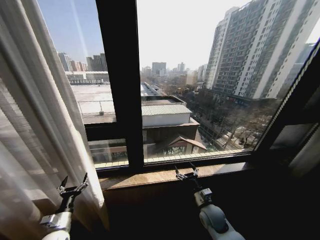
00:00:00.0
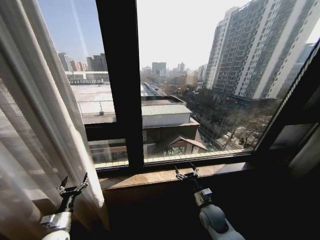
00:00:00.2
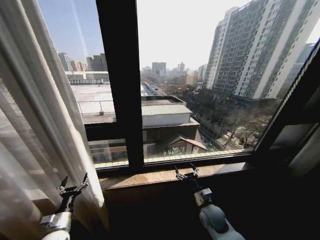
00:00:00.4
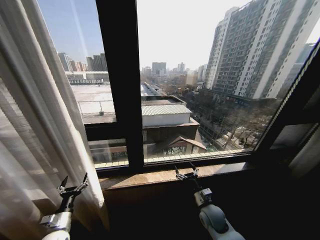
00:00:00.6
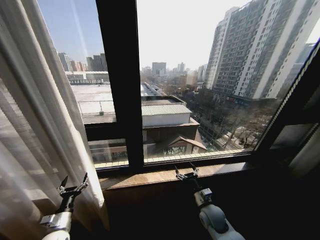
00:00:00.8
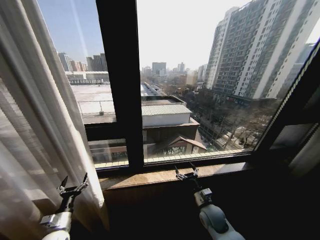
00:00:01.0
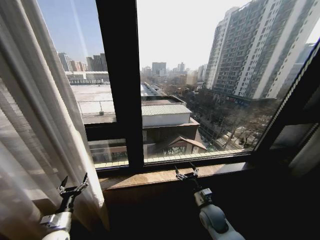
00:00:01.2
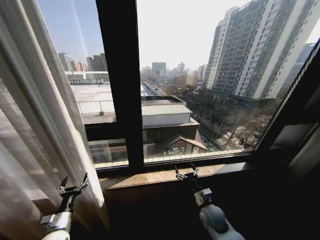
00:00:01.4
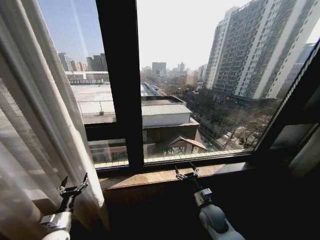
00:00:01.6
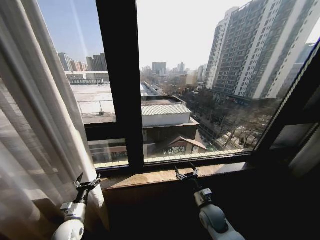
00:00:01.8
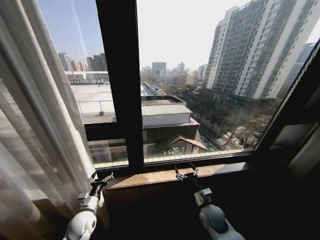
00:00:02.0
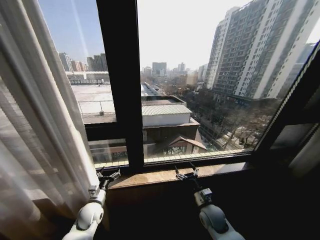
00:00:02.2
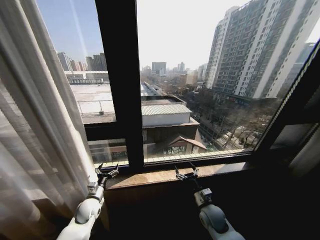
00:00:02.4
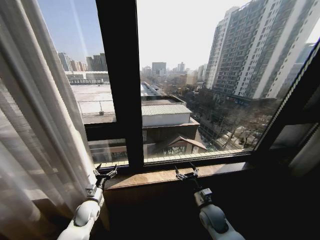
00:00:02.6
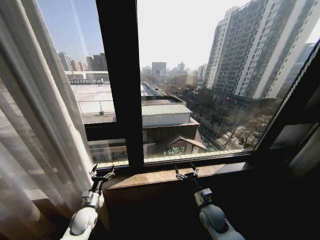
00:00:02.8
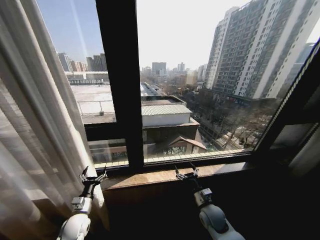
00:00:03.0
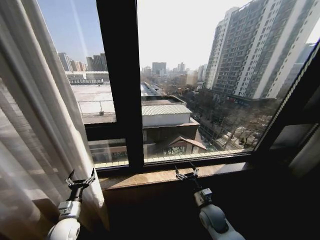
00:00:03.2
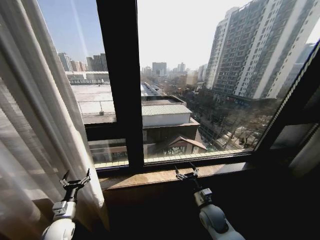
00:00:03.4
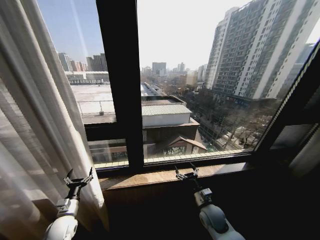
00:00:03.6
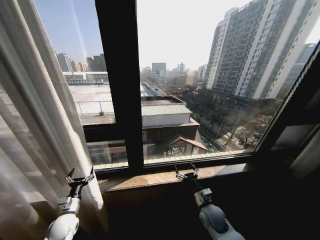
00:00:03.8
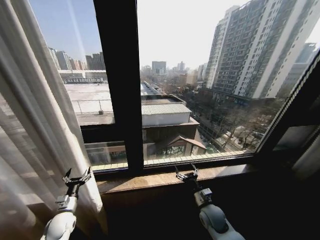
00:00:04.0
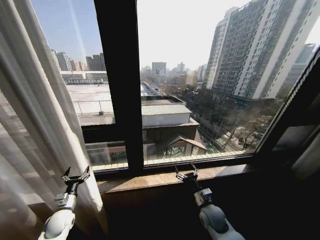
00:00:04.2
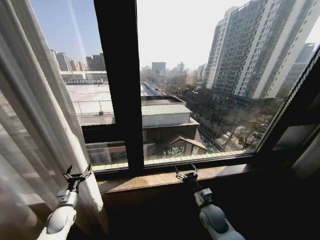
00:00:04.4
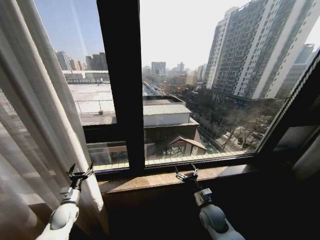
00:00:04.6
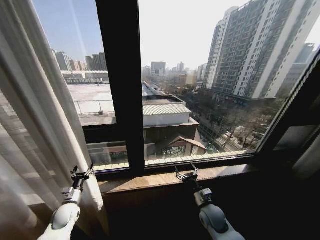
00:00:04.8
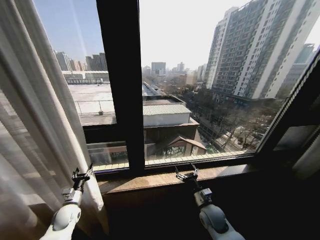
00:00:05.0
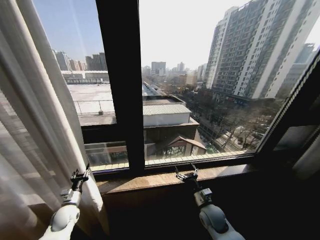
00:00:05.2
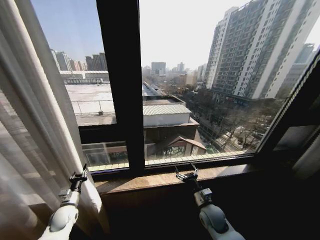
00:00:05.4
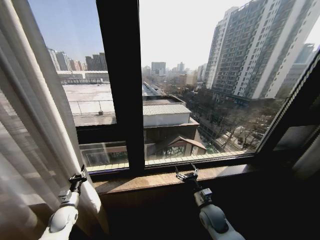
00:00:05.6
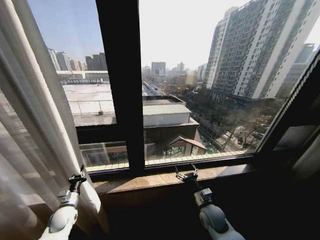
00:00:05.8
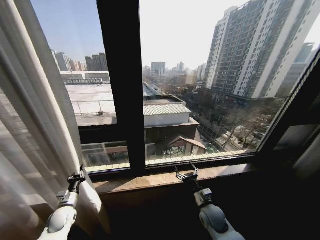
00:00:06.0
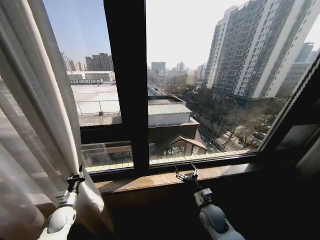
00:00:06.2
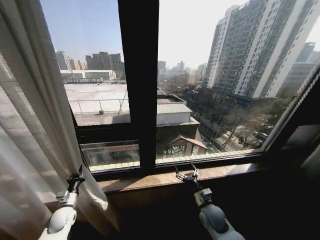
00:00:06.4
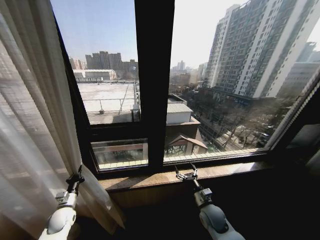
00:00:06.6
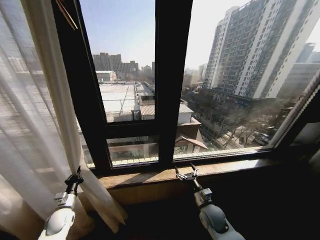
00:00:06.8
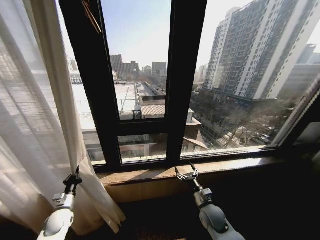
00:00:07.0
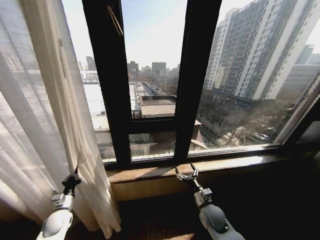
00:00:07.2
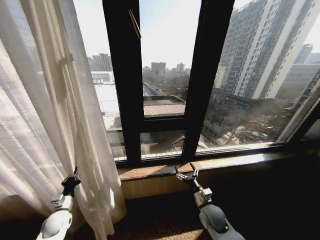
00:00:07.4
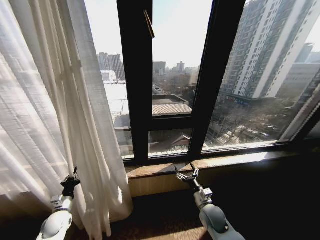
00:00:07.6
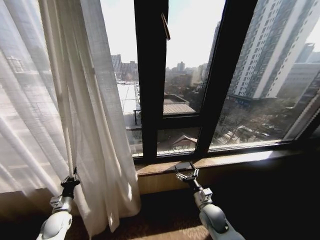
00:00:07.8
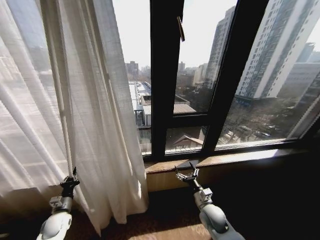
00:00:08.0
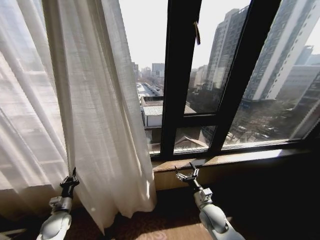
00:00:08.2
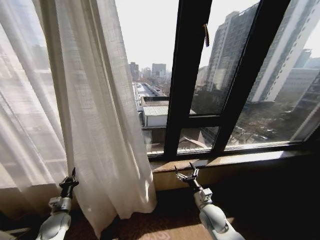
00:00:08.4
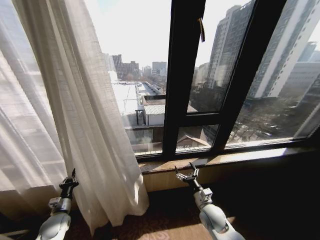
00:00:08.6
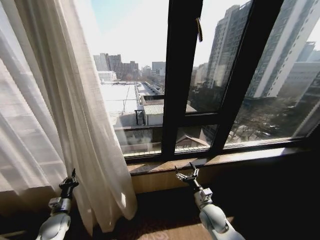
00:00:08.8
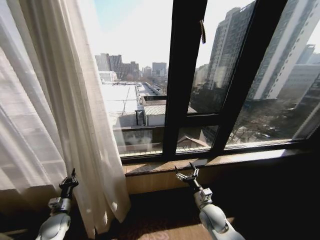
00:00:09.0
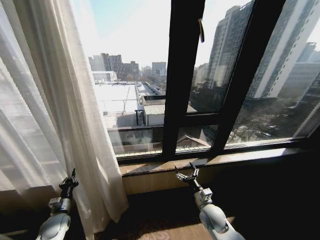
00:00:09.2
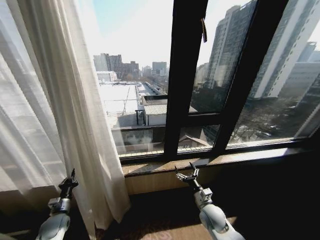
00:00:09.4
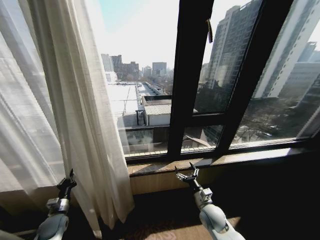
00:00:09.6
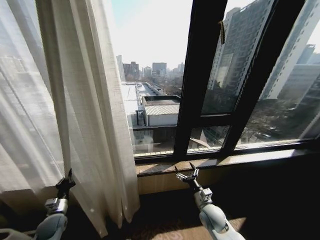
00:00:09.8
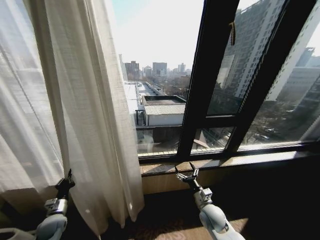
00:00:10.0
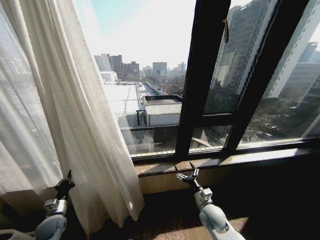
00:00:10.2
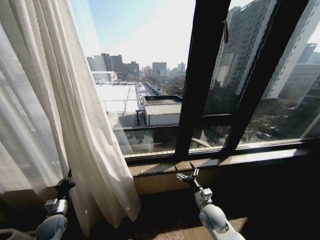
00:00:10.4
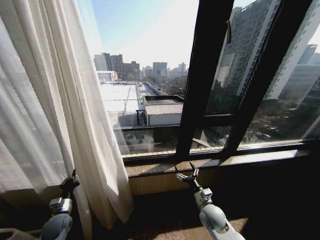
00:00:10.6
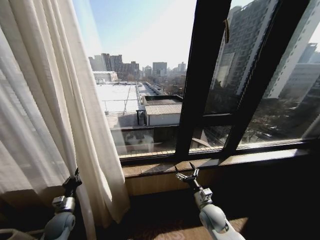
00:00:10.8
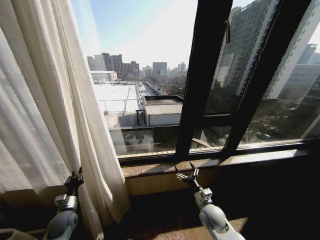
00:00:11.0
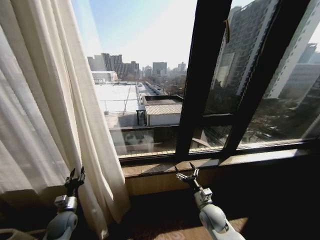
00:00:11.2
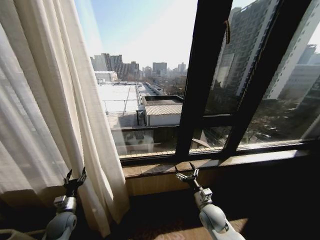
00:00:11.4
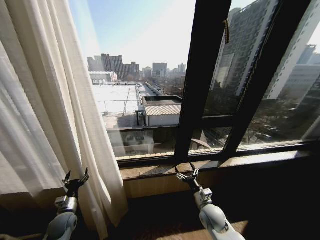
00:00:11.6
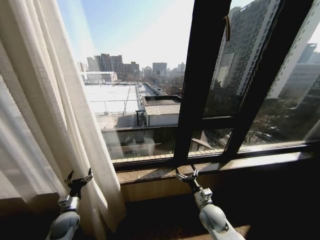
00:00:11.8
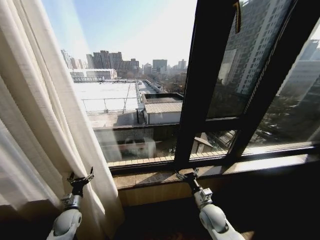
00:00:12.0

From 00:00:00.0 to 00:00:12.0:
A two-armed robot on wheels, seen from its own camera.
Task of the whole recording: Open the curtains by pulling them apart, changing their state from closed to fully open.
From 00:00:00.0 to 00:00:01.6: The two grippers keep their place.
From 00:00:01.6 to 00:00:03.0: The left gripper heads to the right and forward, covering some 10 cm.
From 00:00:03.0 to 00:00:04.4: The left gripper moves to the left, roughly 10 cm.
From 00:00:04.4 to 00:00:06.0: The left gripper closes up.
From 00:00:10.4 to 00:00:12.0: The left gripper moves to the right, roughly 5 cm, and opens up.

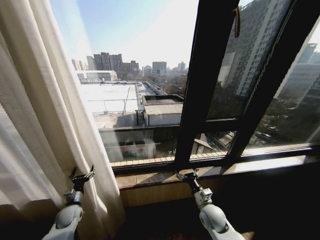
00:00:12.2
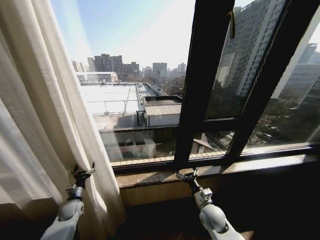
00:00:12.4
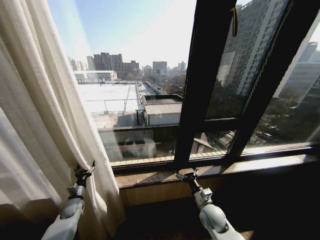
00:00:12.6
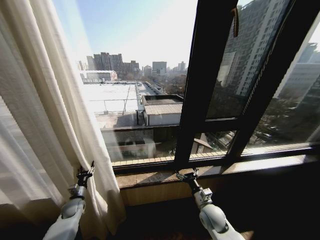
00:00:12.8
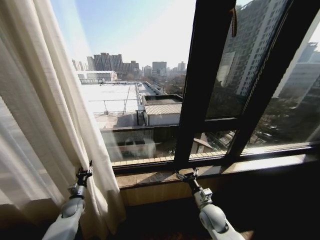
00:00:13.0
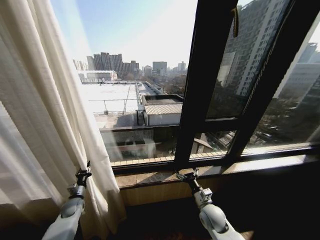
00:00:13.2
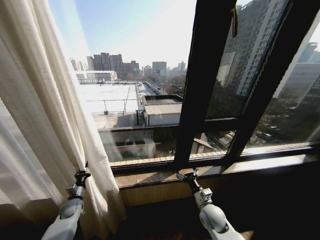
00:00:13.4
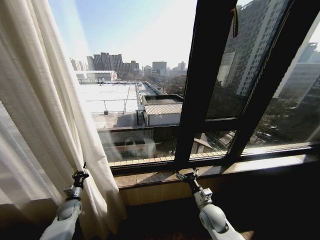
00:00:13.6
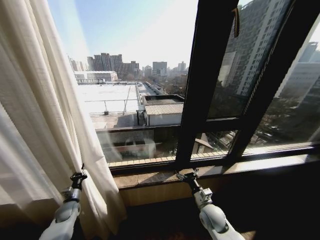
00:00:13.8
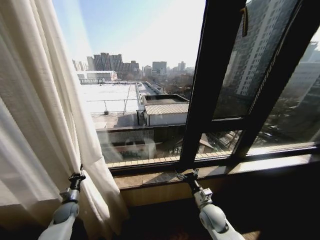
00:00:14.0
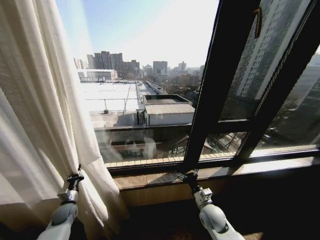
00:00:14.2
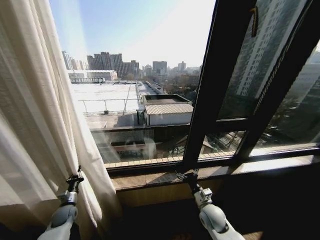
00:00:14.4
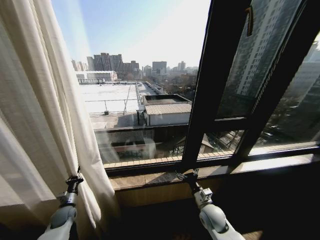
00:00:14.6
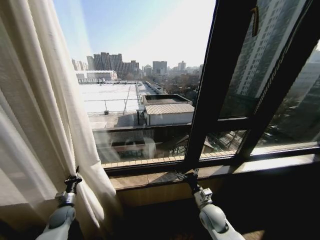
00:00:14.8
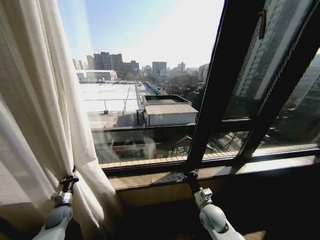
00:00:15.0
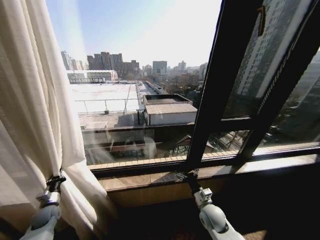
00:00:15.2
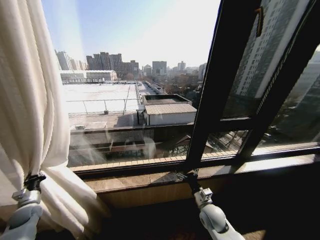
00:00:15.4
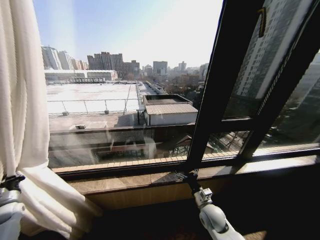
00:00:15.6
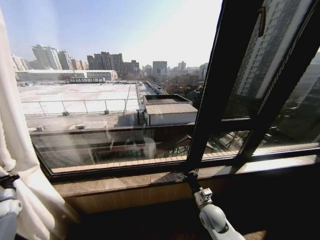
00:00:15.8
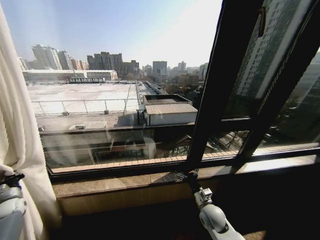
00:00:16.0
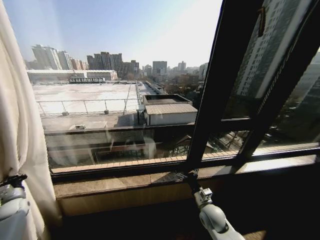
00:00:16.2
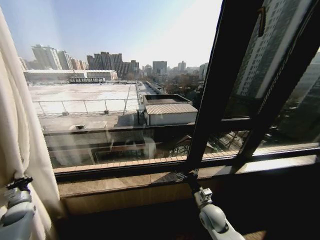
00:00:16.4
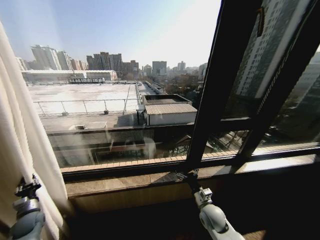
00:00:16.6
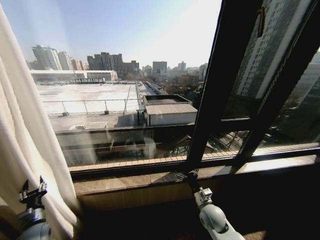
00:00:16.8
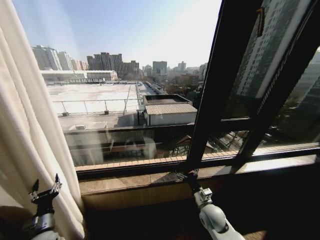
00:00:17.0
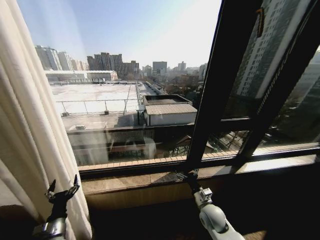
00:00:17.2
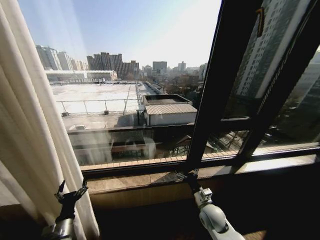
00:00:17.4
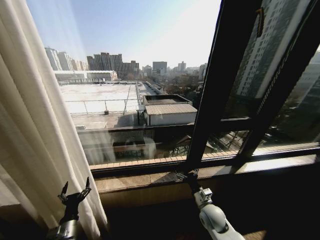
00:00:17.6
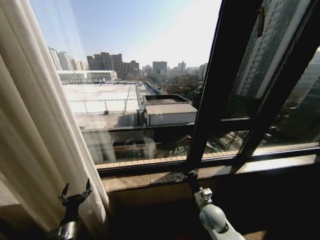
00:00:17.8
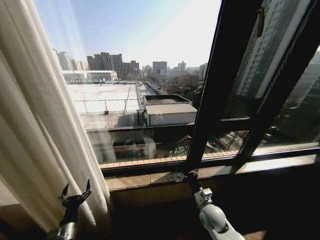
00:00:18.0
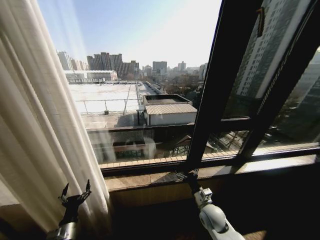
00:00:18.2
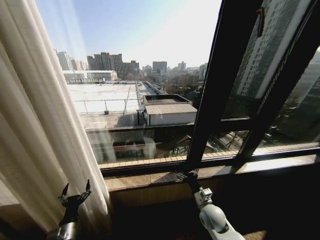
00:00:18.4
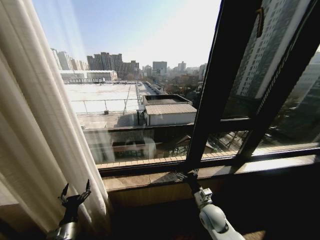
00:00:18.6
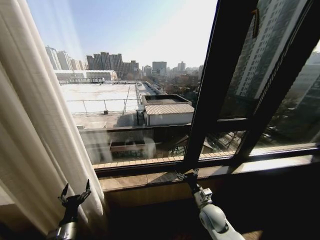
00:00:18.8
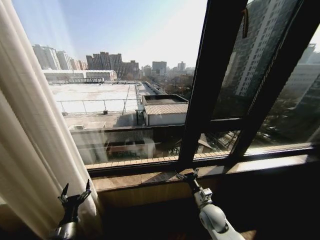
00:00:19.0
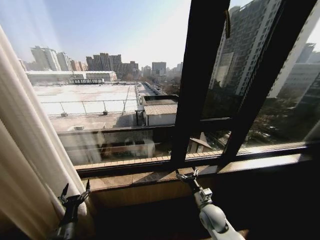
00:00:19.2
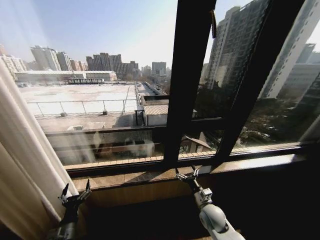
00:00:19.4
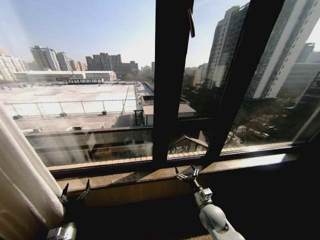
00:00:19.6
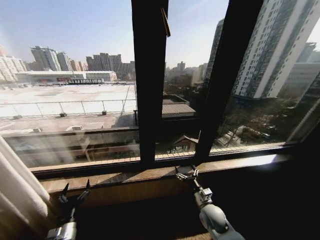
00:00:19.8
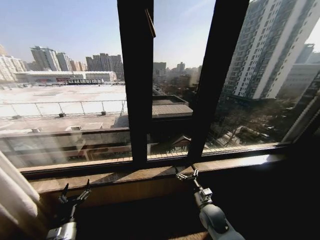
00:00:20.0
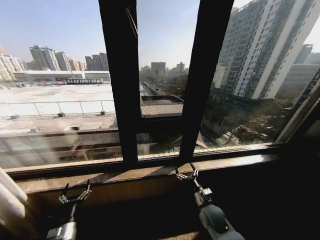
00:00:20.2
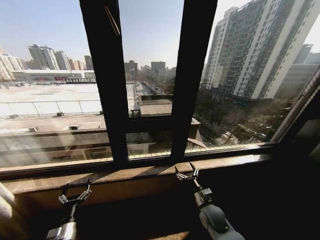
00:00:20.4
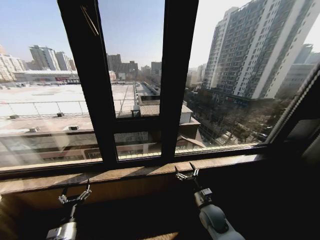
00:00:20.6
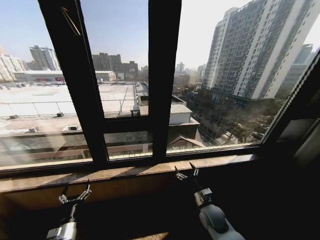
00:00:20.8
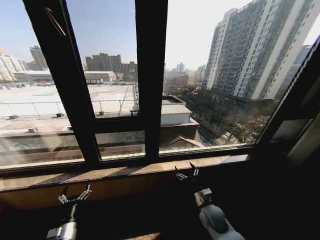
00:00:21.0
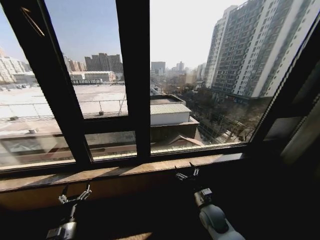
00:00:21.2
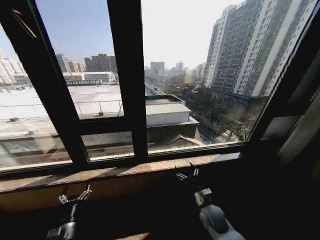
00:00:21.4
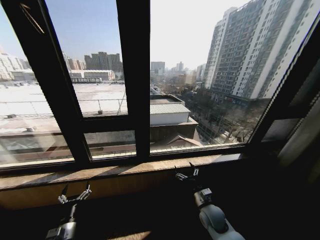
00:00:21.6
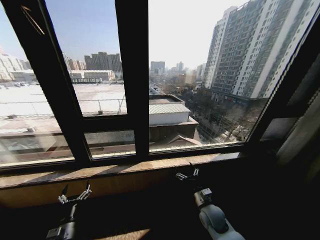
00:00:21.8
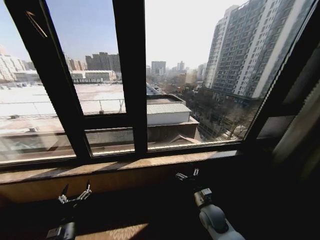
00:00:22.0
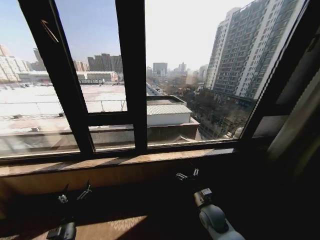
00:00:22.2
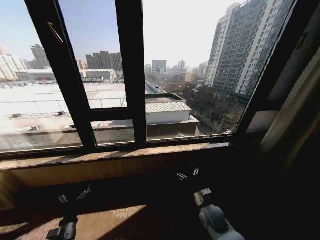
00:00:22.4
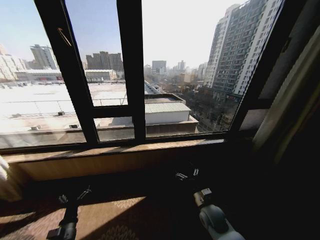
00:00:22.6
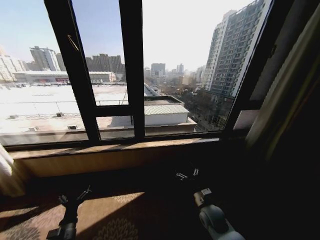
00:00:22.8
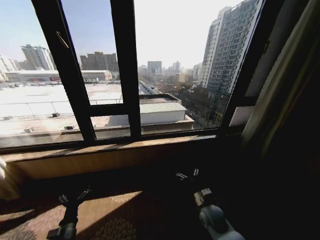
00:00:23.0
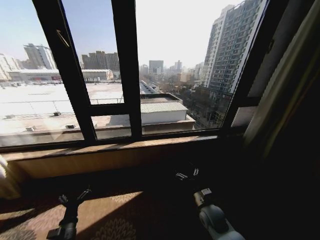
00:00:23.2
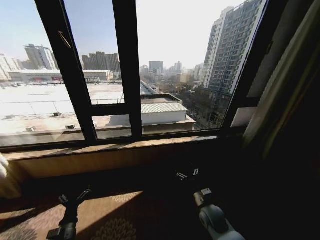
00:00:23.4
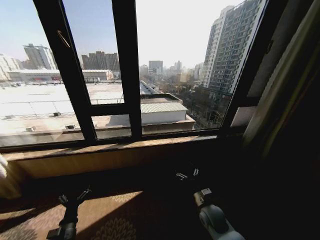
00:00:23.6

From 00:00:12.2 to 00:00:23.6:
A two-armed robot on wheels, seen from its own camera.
Task of the whole recording: Open the curtains by pulling them apart, changing their state from closed to fully open.
From 00:00:12.2 to 00:00:13.6: The left gripper closes its fingers.
From 00:00:15.0 to 00:00:16.4: The left gripper heads to the left, covering approximately 15 cm.
From 00:00:16.4 to 00:00:17.8: The left gripper heads to the right and backward, covering some 30 cm, and opens its fingers.
